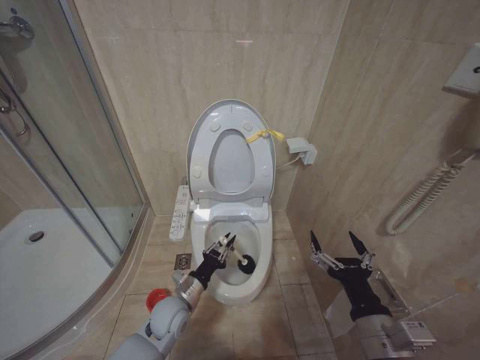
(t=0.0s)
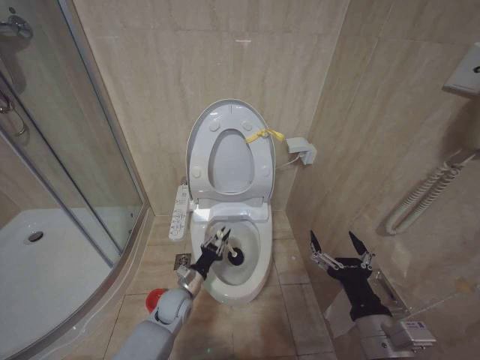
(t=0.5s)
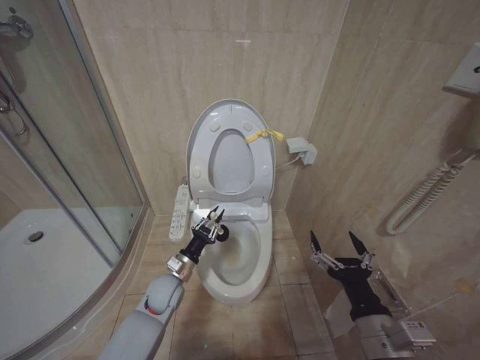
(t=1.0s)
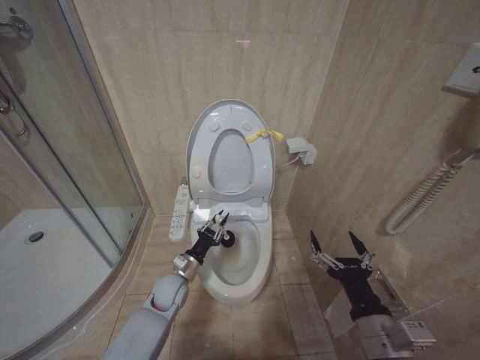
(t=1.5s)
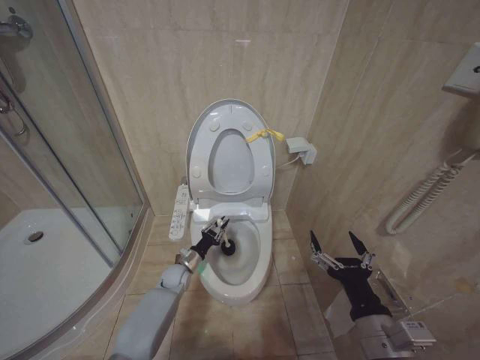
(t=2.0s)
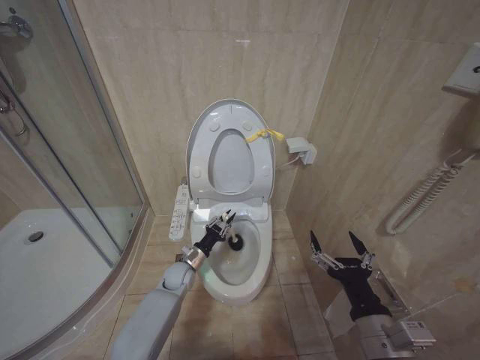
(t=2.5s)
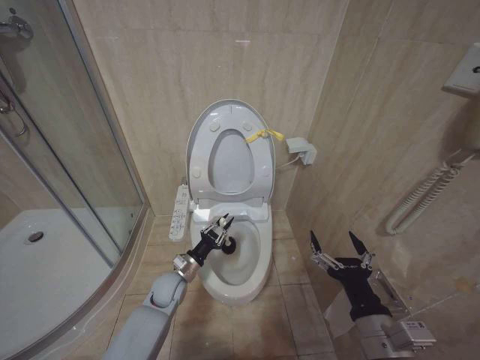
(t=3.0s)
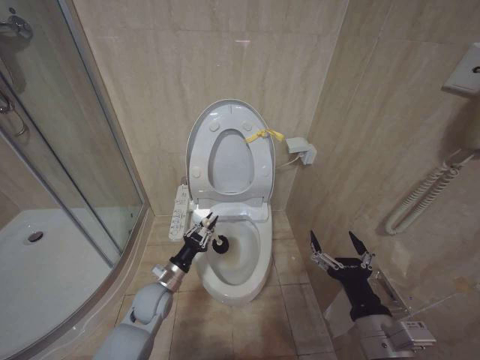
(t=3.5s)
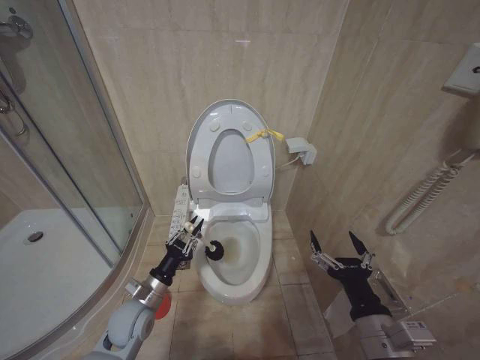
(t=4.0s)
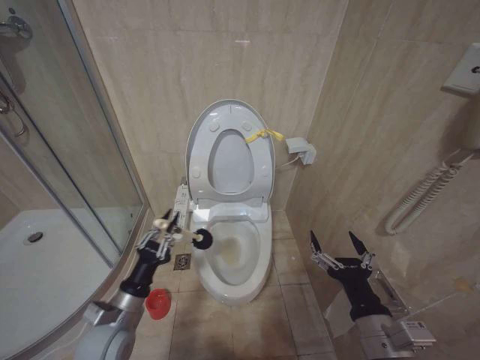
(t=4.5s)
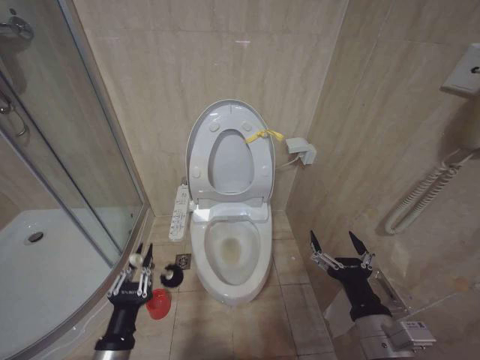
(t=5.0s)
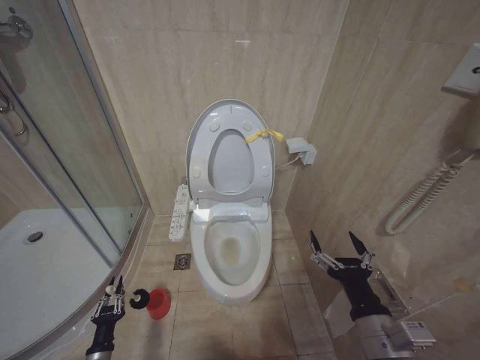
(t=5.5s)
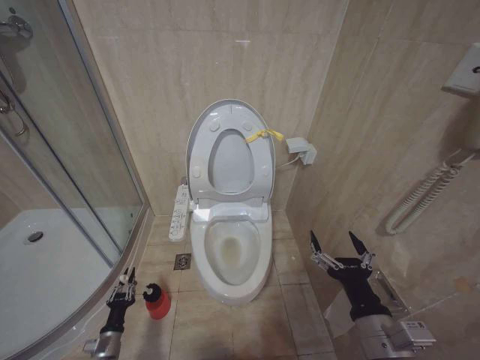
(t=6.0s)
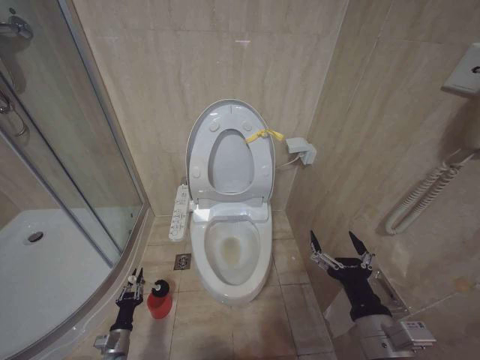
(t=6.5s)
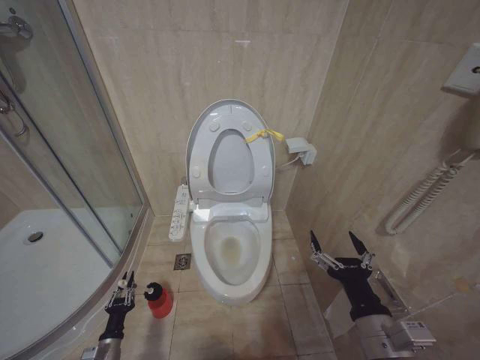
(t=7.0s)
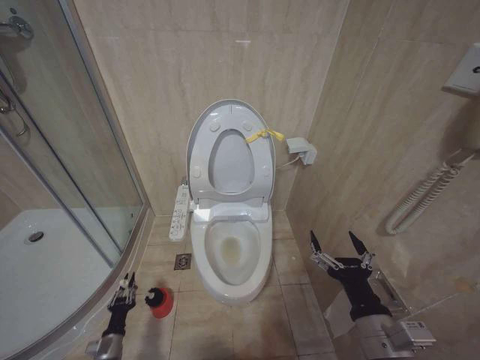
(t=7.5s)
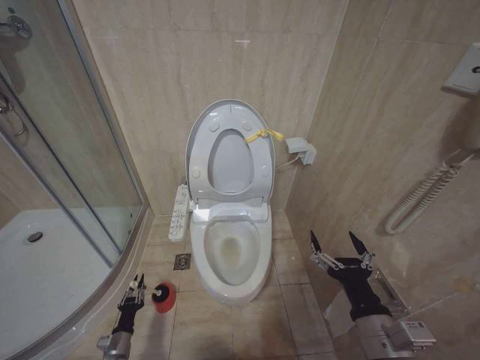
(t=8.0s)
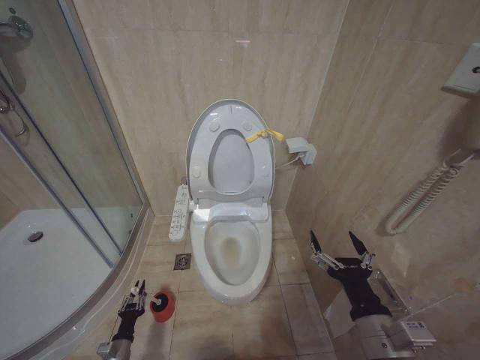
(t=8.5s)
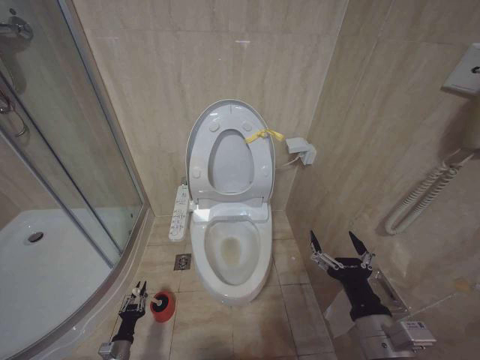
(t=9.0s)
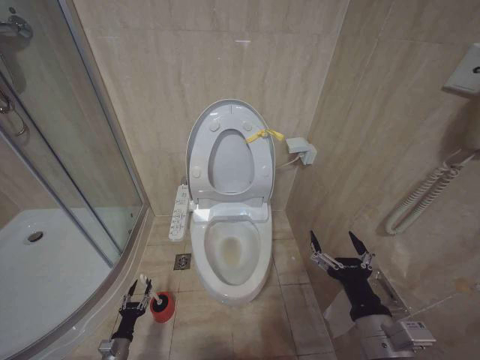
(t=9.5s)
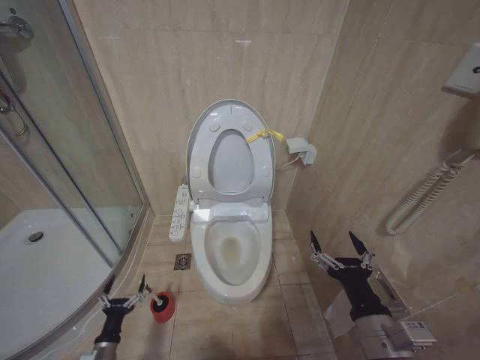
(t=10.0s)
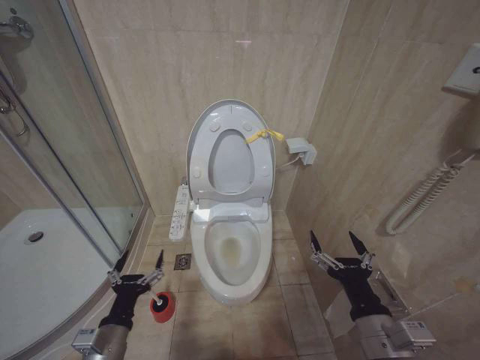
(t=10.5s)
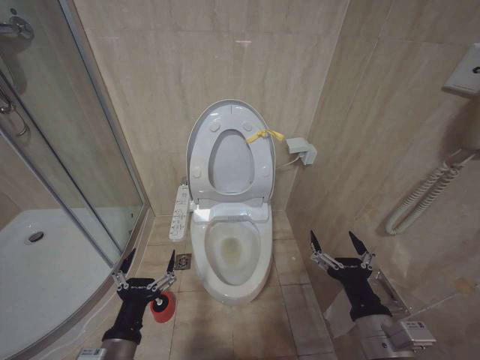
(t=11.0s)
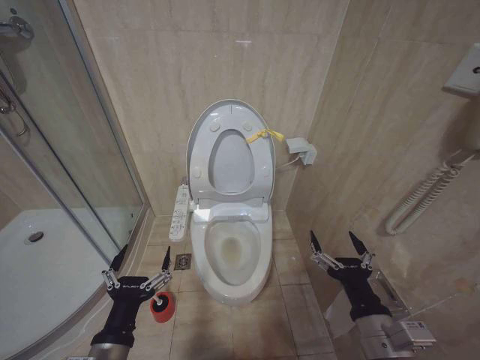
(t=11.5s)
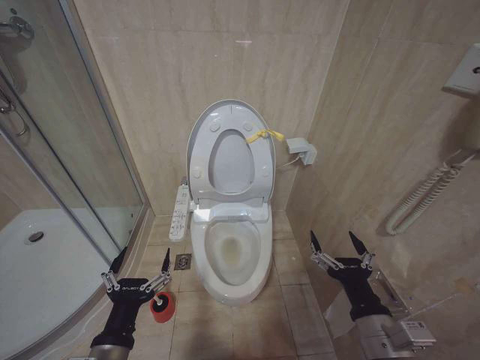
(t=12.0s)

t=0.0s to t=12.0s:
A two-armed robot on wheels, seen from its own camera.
Task of the whole recording: Open the toilet lid, clean the toilet bowl with a toilet brush, close the toilet lid, and flush.
t=0.0s to t=2.0s: The left gripper shifts roughly 15 cm forward and downward.
t=2.0s to t=4.0s: The left gripper shifts approximately 15 cm backward and upward.
t=4.0s to t=6.0s: The left gripper heads downward and to the left, covering about 25 cm.
t=6.0s to t=8.0s: The grippers make only small movements.
t=8.0s to t=10.0s: The left gripper moves upward and backward, some 10 cm, and opens its fingers.
t=10.0s to t=12.0s: The left gripper is displaced upward and to the right by about 35 cm.

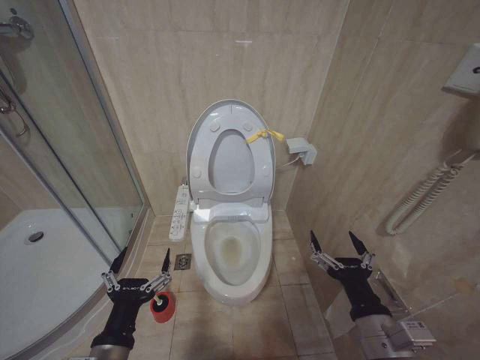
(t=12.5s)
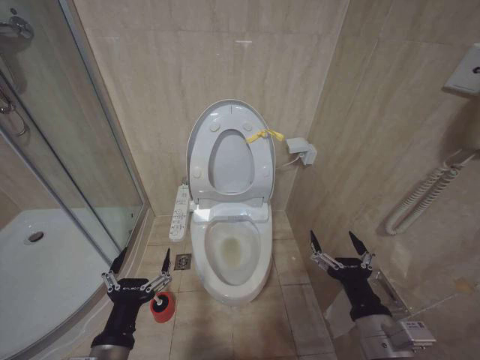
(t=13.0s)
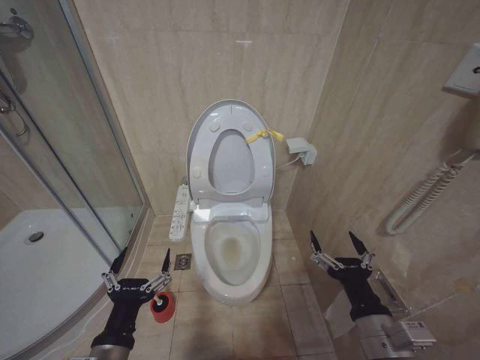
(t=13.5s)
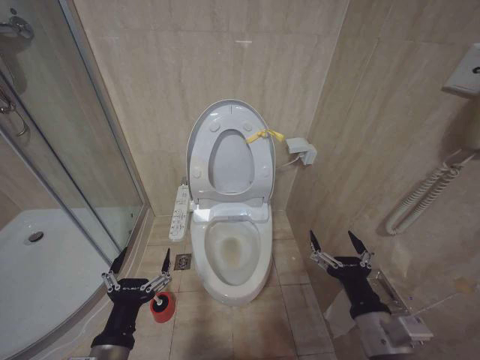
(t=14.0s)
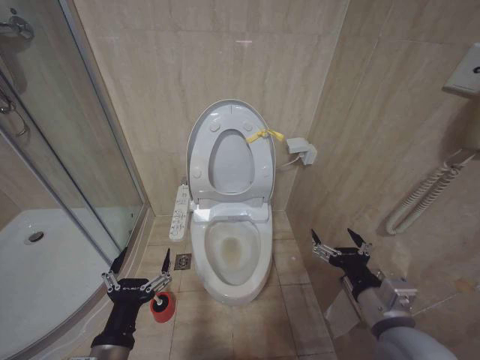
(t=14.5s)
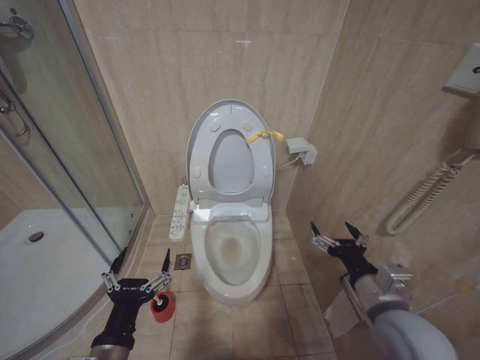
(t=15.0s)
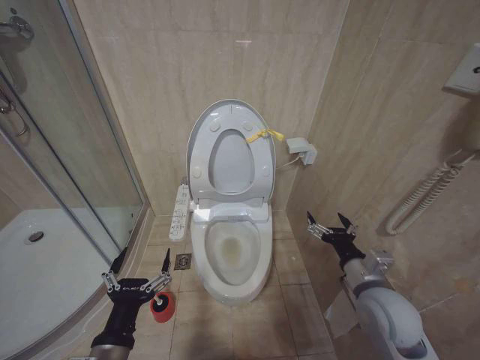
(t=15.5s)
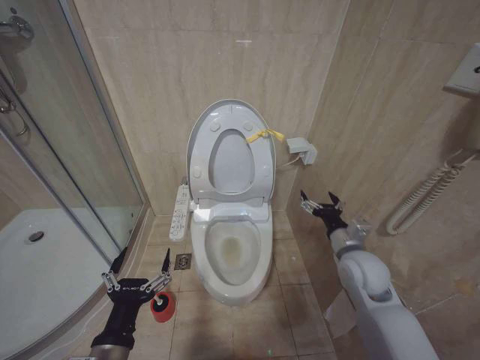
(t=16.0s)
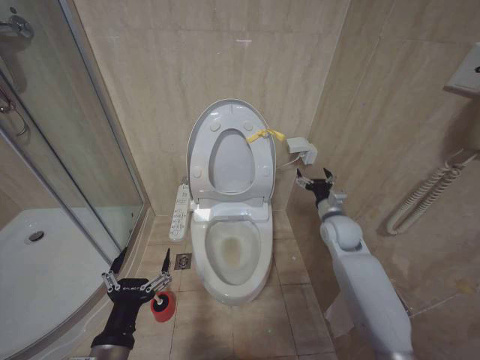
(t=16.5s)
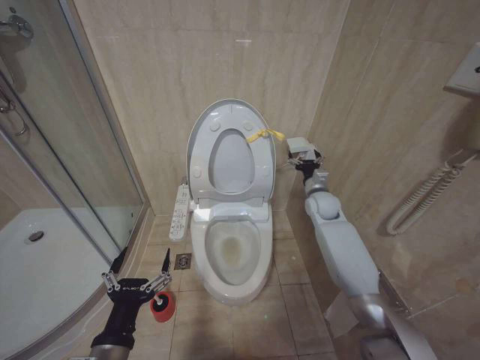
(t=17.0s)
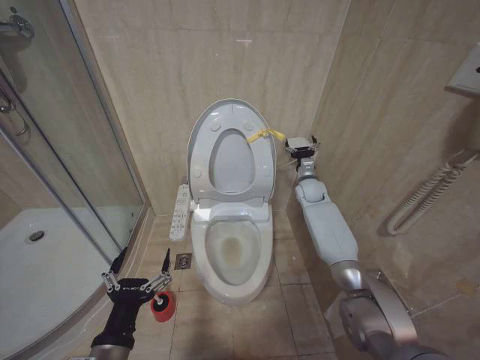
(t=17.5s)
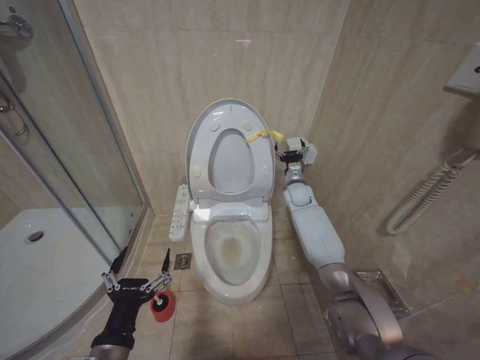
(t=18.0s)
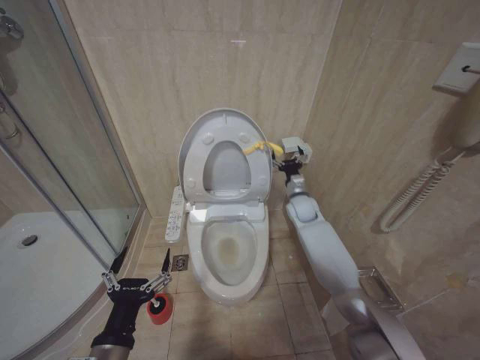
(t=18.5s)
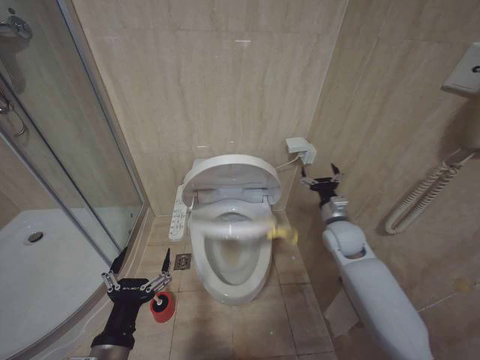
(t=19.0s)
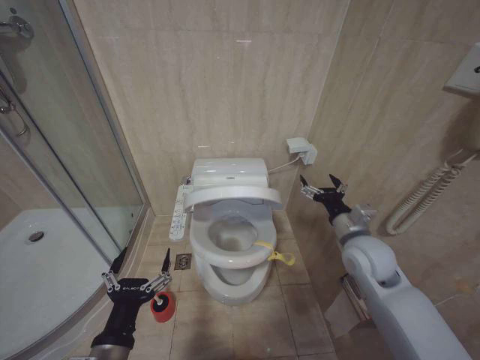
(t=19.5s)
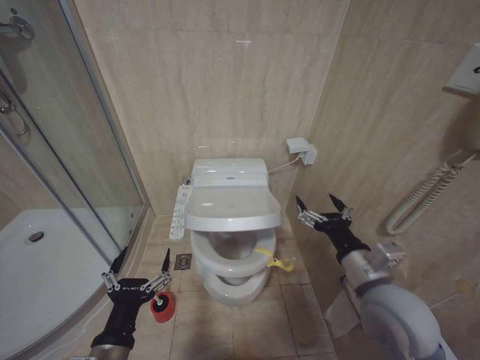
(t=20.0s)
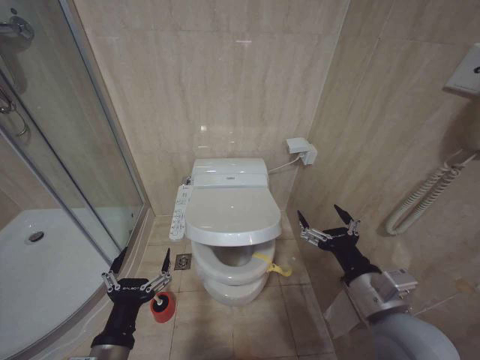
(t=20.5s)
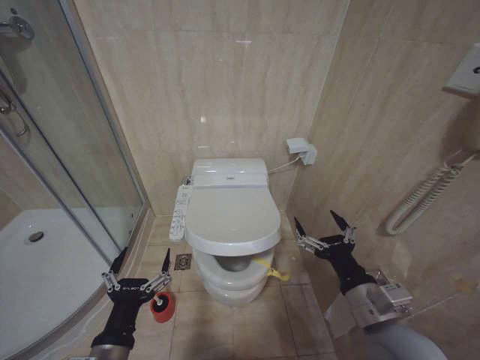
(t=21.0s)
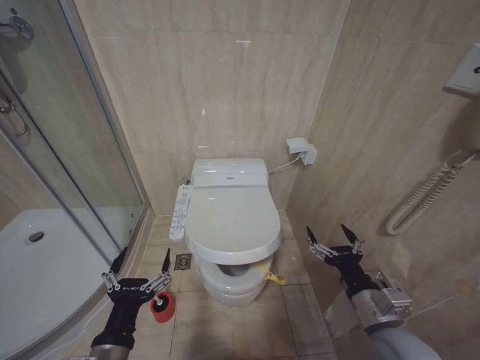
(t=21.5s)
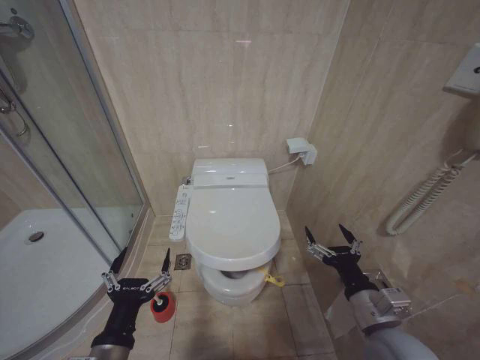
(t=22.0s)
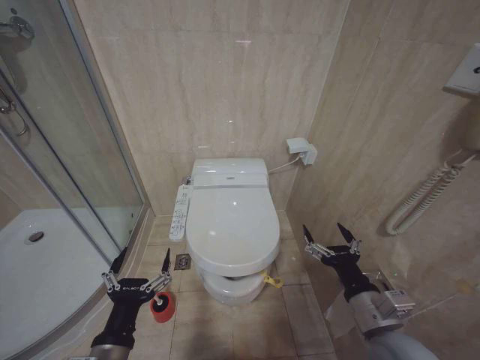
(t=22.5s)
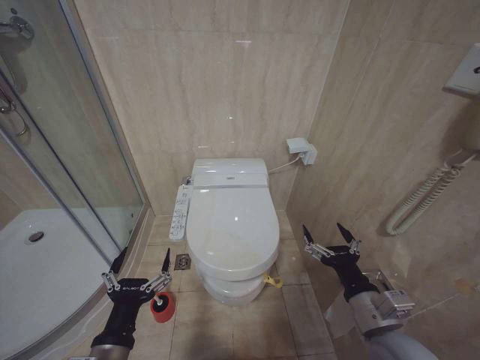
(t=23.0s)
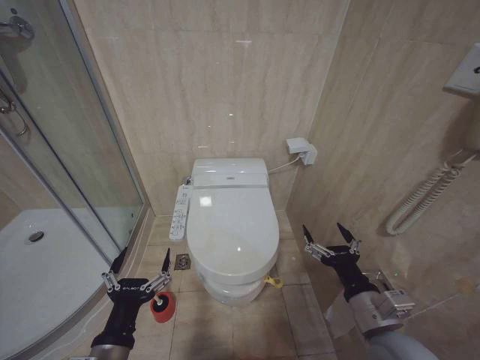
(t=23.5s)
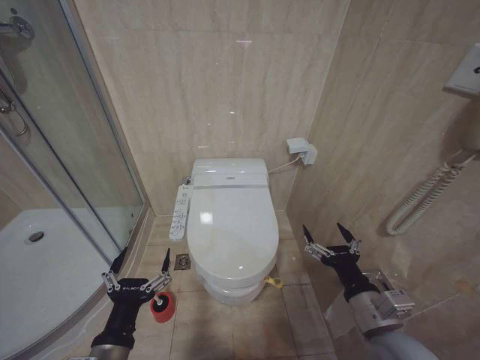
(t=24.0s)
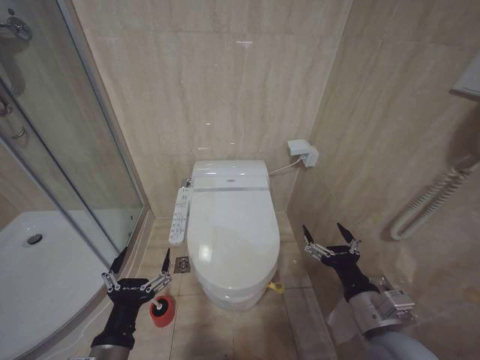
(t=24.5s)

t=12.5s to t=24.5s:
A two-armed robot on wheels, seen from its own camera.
Task of the whole recording: Open the toilet lid, clean the toilet bowl with a toilet brush, close the toilet lid, and flush.
t=12.5s to t=14.5s: The grippers move only a little.
t=14.5s to t=16.5s: The right gripper travels forward by about 25 cm.
t=16.5s to t=18.5s: The right gripper shifts some 15 cm forward and to the left.
t=18.5s to t=20.5s: The right gripper goes about 40 cm backward.
t=20.5s to t=22.5s: The right gripper is displaced downward by approximately 5 cm.
t=22.5s to t=24.5s: The two grippers keep their place.

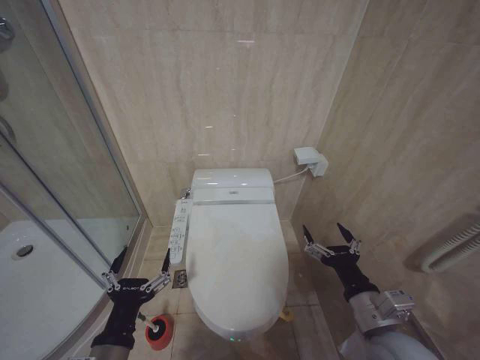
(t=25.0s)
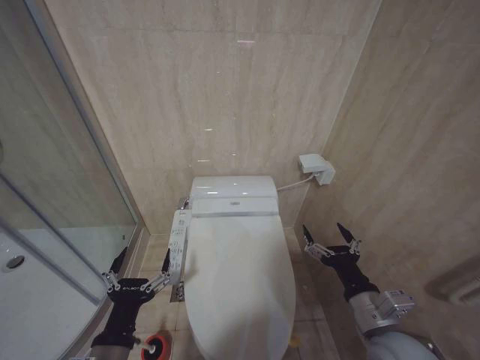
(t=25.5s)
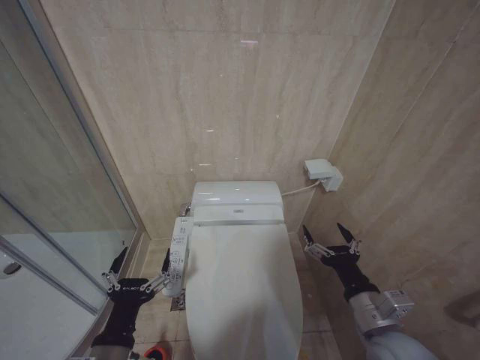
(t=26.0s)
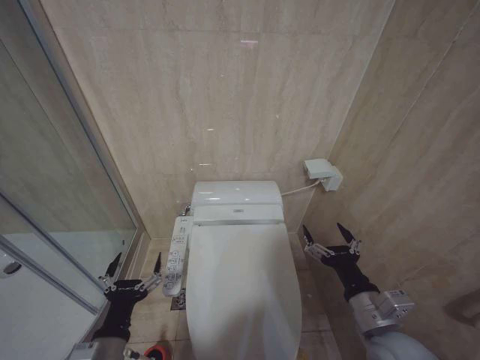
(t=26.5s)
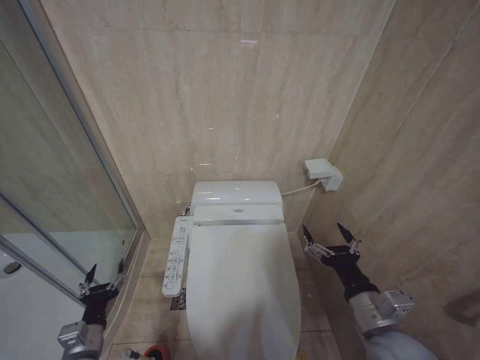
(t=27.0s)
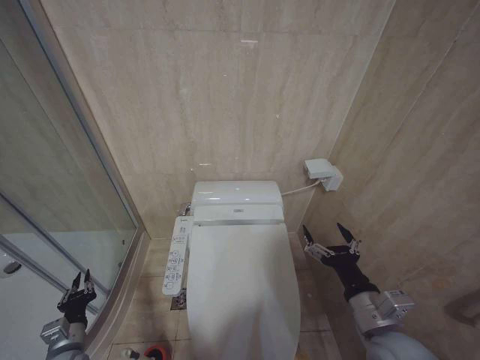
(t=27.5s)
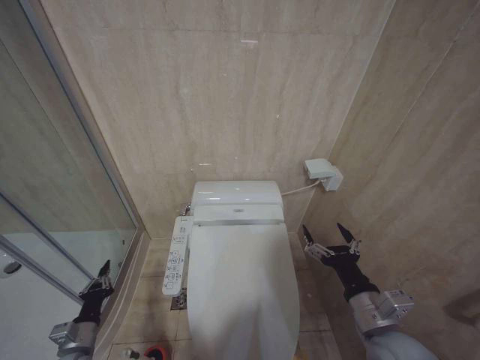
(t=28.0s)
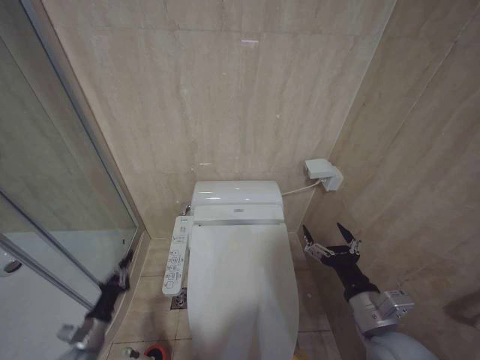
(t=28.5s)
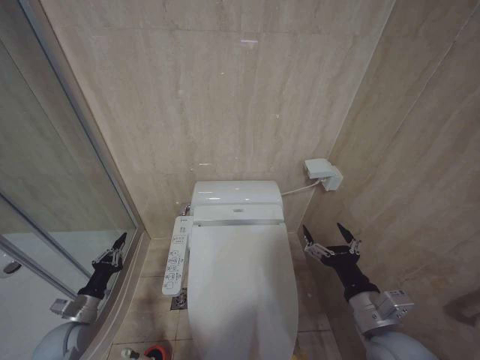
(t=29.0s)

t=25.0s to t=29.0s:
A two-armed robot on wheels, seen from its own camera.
Task of the whole recording: Open the toilet lid, clean the toilet bowl with a toilet brush, close the toilet lid, and flush.
t=25.0s to t=27.0s: The left gripper travels downward, to the left and forward by approximately 15 cm.
t=27.0s to t=29.0s: The left gripper shifts some 15 cm to the left and forward, and closes its fingers.
